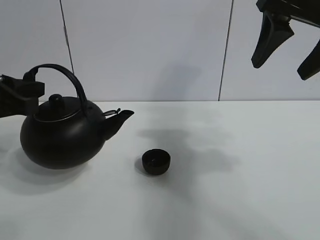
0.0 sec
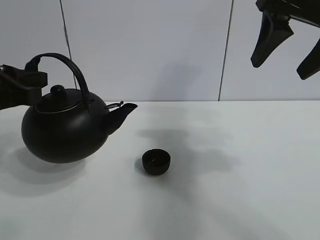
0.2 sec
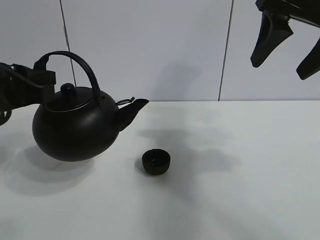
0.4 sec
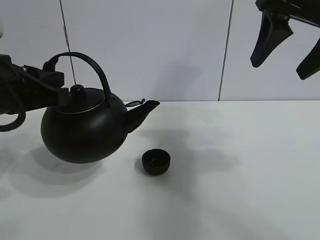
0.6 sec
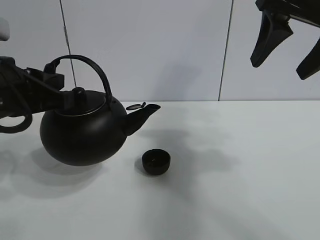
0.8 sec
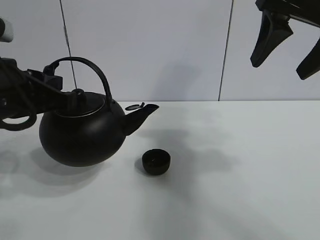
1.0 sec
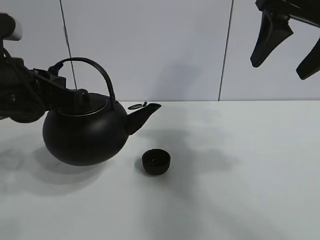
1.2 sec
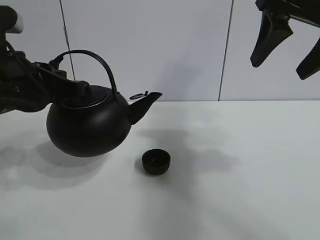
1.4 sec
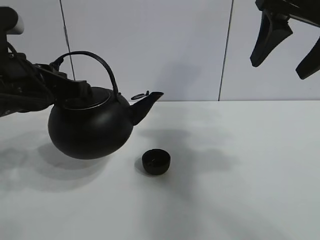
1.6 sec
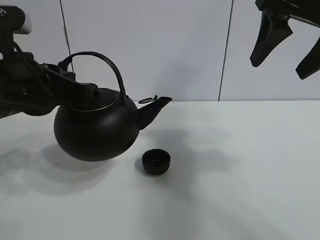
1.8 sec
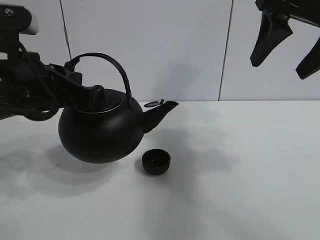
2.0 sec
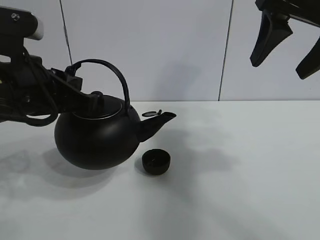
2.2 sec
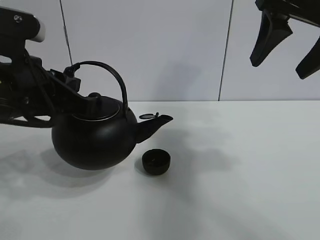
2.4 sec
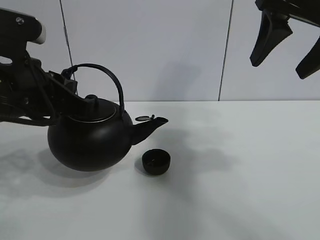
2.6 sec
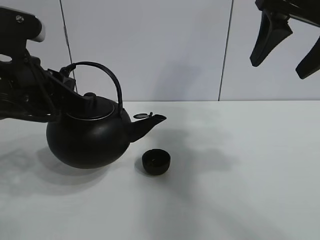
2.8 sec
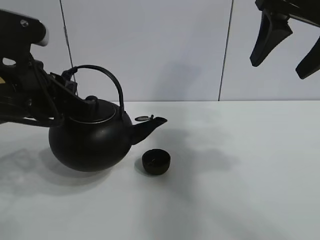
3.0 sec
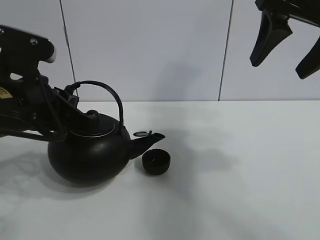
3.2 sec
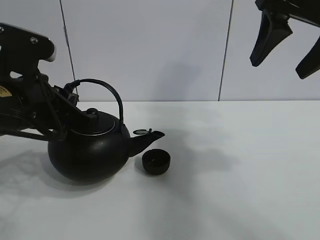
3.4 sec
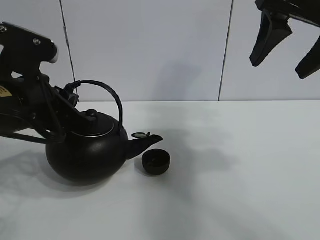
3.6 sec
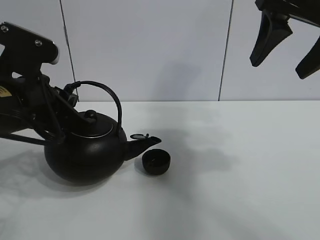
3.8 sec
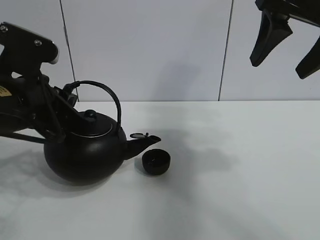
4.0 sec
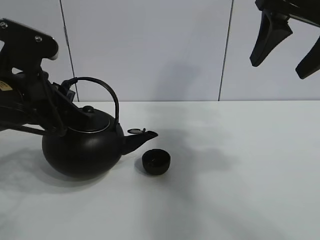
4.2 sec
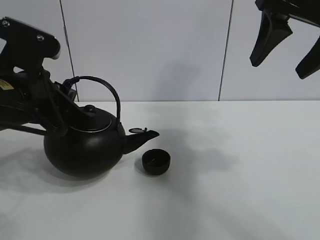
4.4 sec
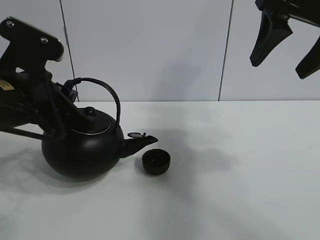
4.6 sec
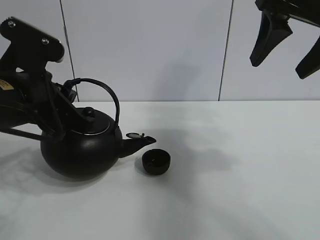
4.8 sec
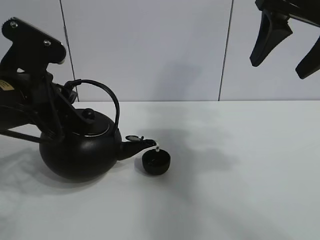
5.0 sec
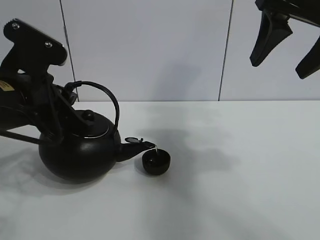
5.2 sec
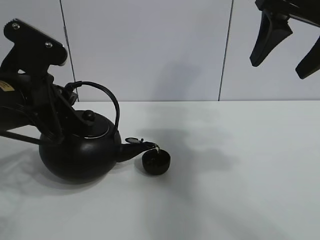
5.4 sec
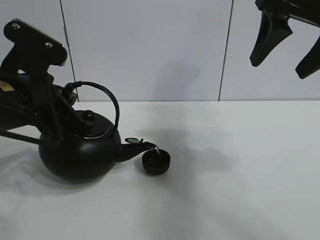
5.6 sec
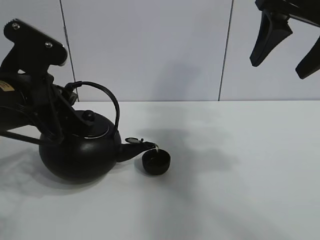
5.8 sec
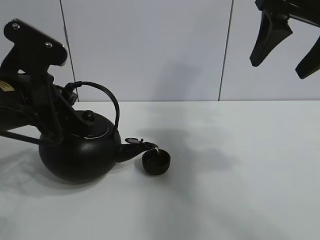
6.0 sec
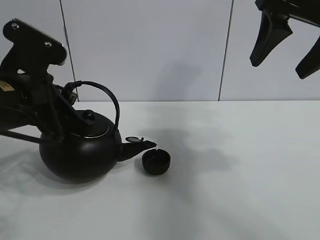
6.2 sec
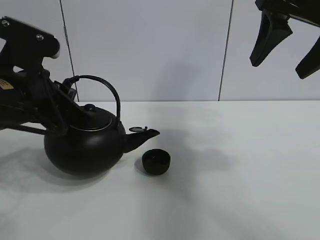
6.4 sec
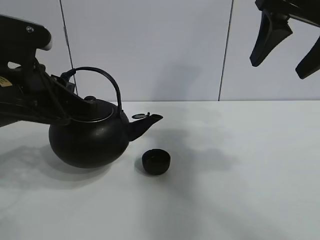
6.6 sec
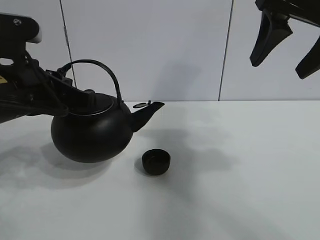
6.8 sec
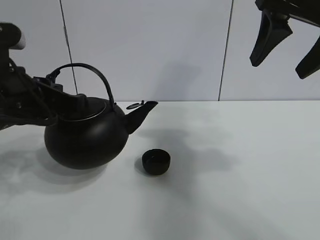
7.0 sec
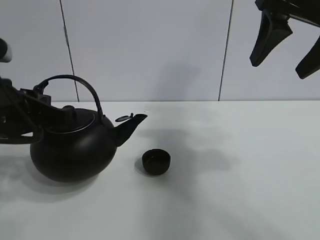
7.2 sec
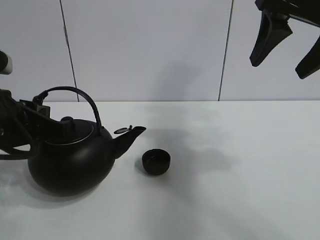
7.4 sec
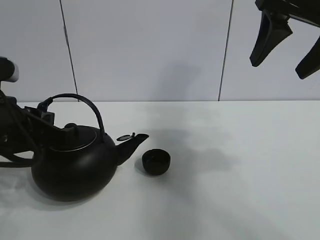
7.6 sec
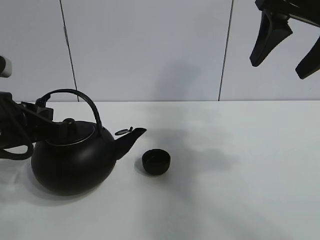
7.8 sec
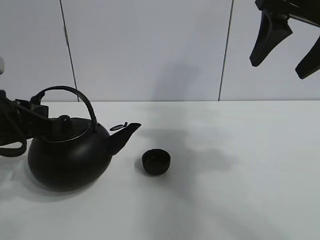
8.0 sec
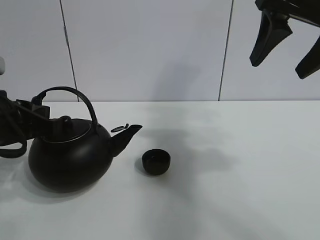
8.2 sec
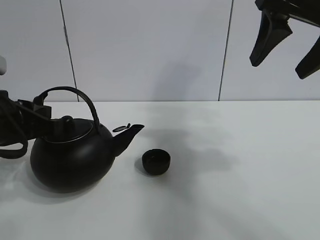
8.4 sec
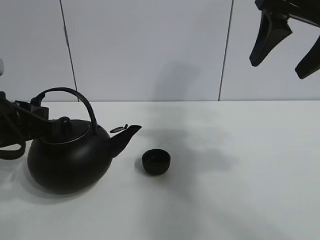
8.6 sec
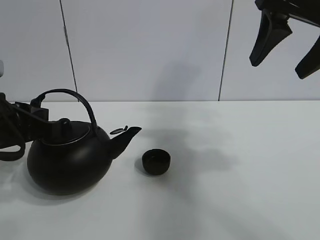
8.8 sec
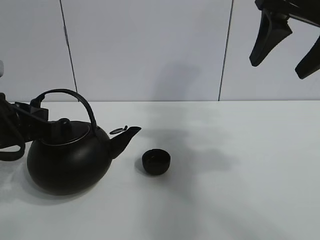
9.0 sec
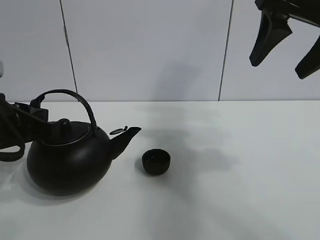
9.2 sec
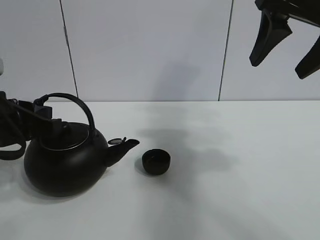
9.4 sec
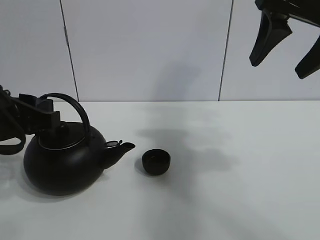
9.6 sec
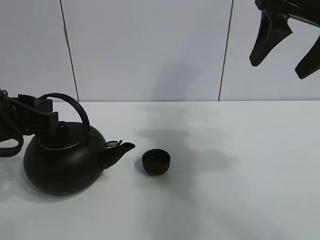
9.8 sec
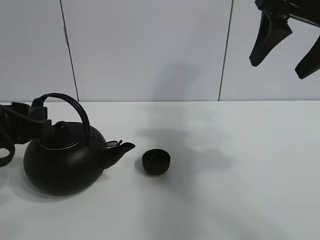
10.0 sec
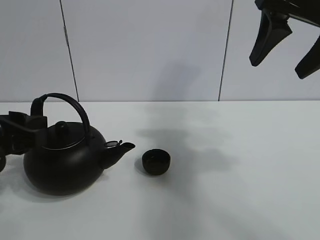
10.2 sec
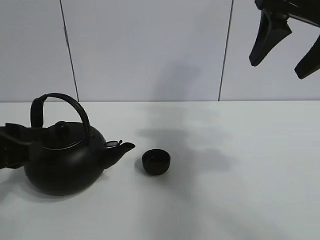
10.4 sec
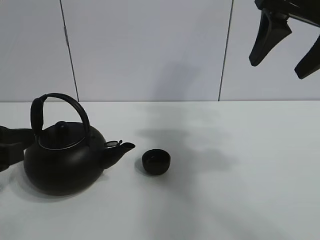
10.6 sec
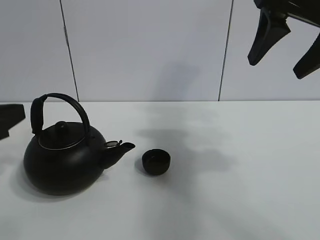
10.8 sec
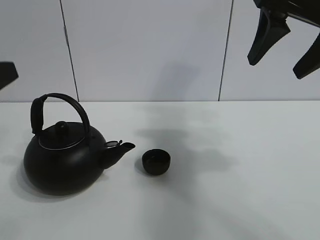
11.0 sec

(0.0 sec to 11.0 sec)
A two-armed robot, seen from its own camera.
Task of the whole recording: pour tea into the teacup.
Step, 0.0 sec - 6.2 sec: Pour tea into the teacup with the left gripper.
0.0 sec - 1.6 sec: The left gripper moves to the right, approximately 5 cm.
1.6 sec - 3.2 sec: There are only small adjustments of the grippers.
3.2 sec - 4.8 sec: The grippers move only a little.
4.8 sec - 6.2 sec: The two grippers keep their place.
7.8 sec - 9.4 sec: Both grippers stay put.
9.4 sec - 11.0 sec: The left gripper shifts about 10 cm backward and upward, and opens its fingers.

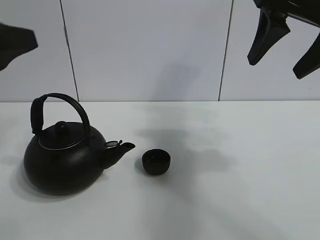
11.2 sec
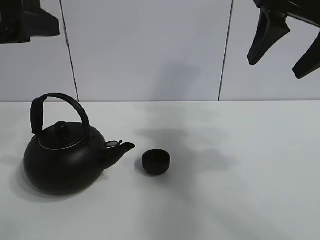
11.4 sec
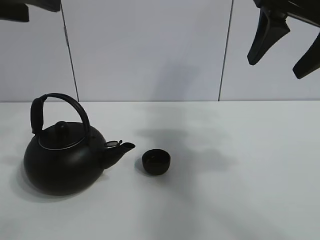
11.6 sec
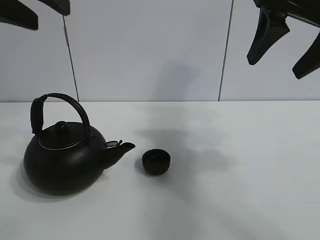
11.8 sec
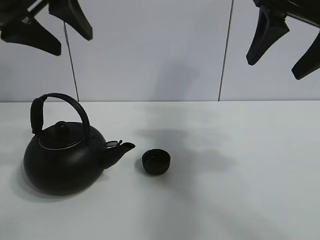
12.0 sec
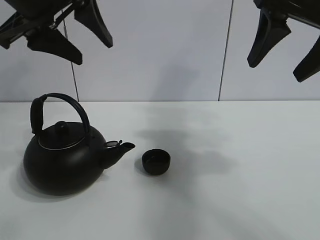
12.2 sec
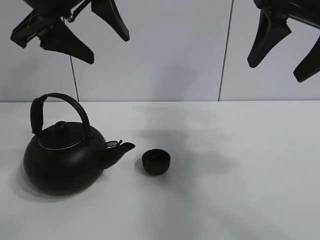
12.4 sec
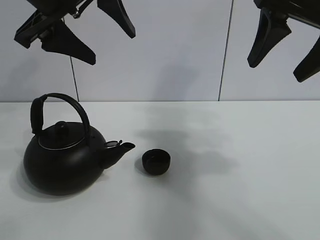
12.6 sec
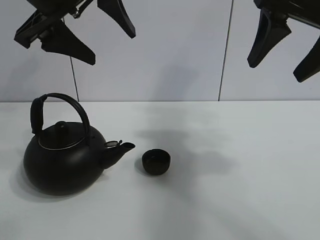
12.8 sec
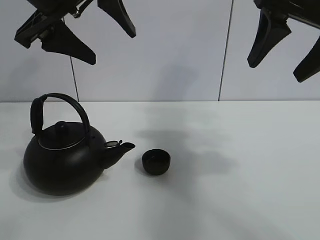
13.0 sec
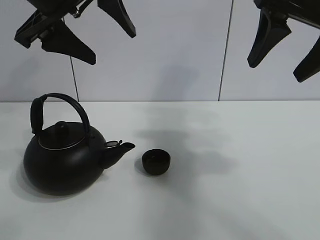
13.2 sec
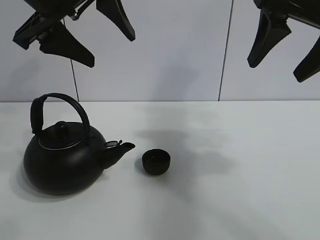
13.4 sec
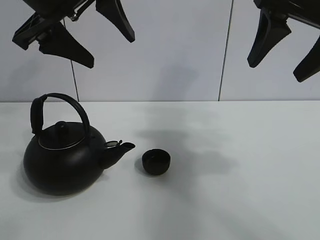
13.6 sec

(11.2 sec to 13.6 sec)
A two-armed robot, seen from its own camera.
Task of the whole recording: pour tea into the teacup.
11.2 sec - 12.4 sec: The left gripper travels forward, to the right and upward by some 15 cm.
12.4 sec - 13.6 sec: Both grippers stay about where they are.
